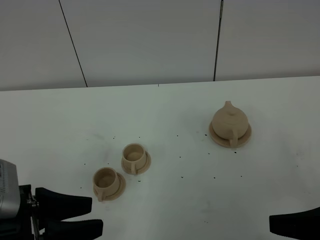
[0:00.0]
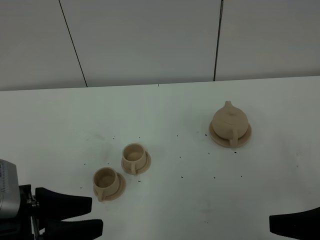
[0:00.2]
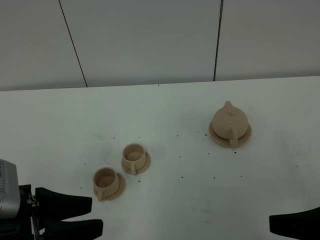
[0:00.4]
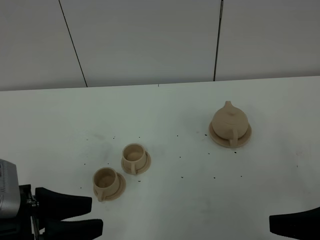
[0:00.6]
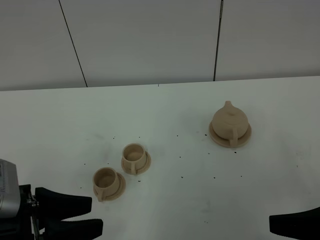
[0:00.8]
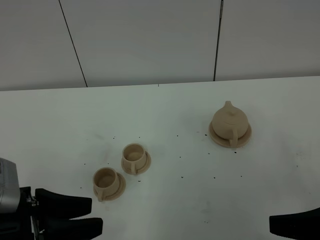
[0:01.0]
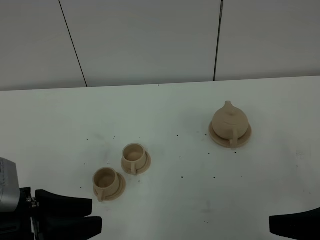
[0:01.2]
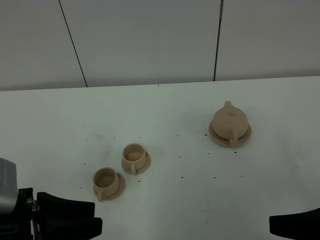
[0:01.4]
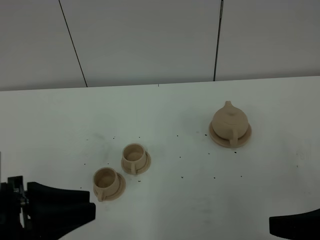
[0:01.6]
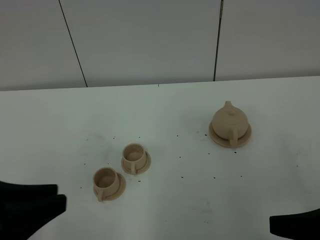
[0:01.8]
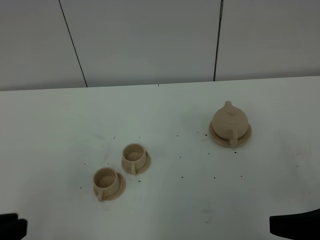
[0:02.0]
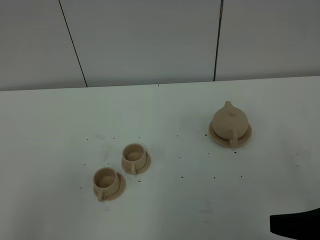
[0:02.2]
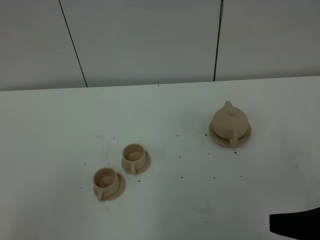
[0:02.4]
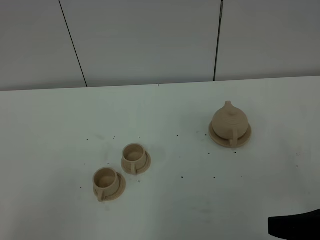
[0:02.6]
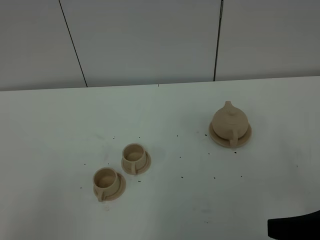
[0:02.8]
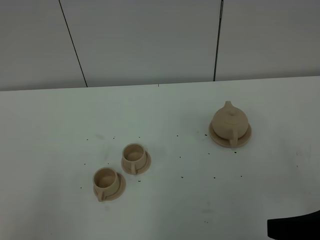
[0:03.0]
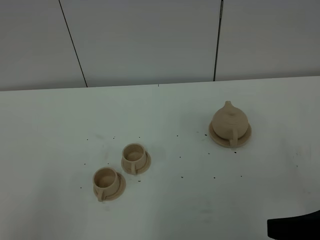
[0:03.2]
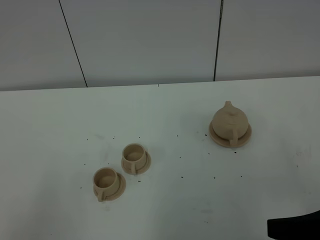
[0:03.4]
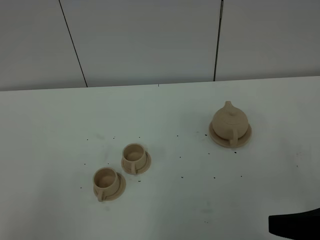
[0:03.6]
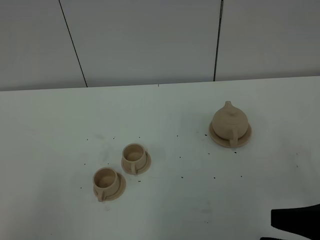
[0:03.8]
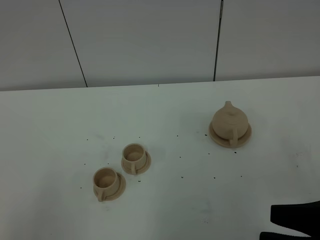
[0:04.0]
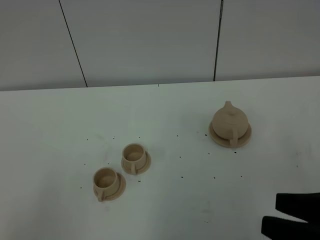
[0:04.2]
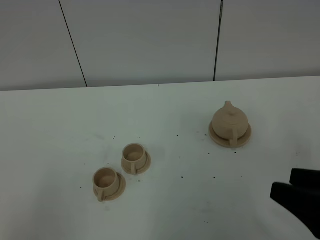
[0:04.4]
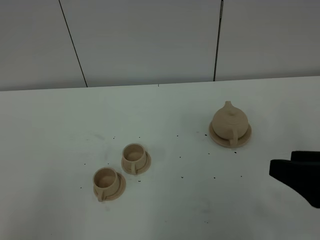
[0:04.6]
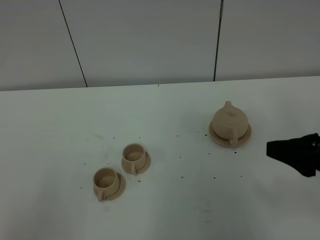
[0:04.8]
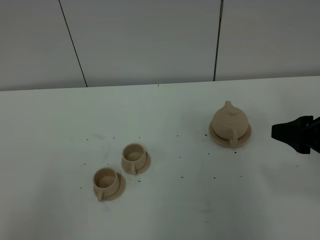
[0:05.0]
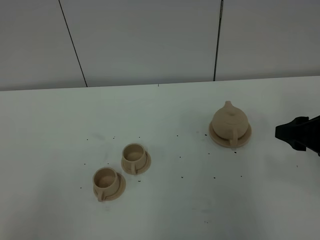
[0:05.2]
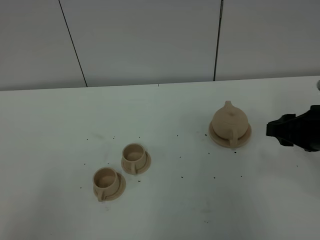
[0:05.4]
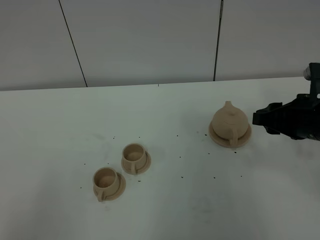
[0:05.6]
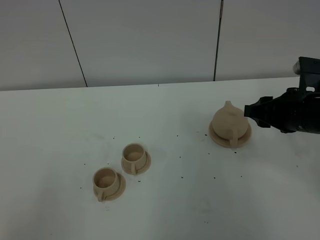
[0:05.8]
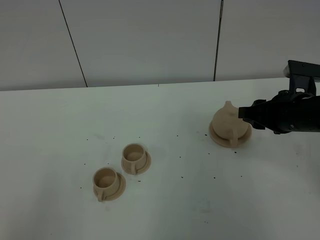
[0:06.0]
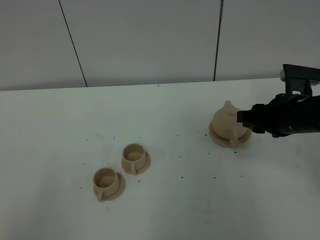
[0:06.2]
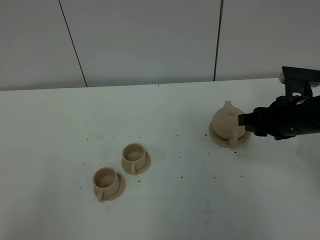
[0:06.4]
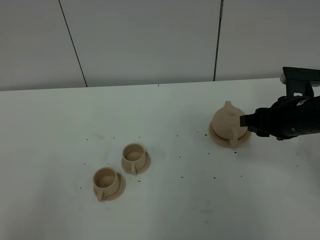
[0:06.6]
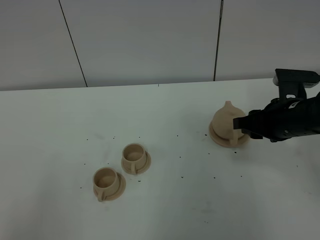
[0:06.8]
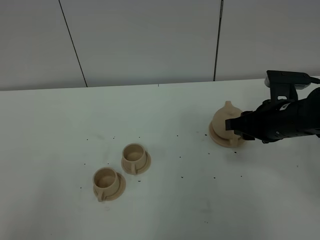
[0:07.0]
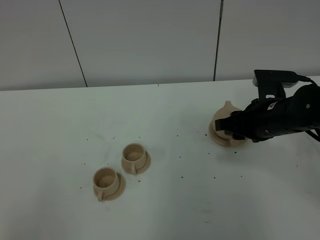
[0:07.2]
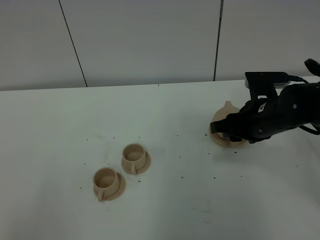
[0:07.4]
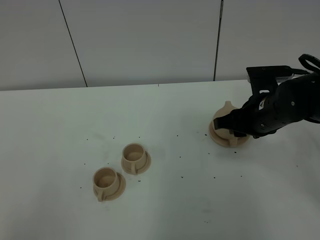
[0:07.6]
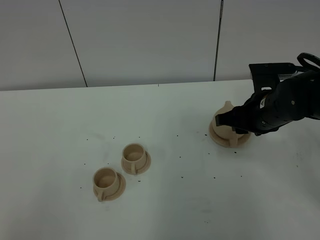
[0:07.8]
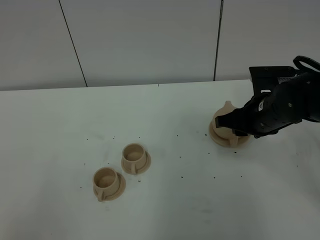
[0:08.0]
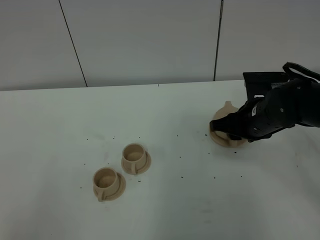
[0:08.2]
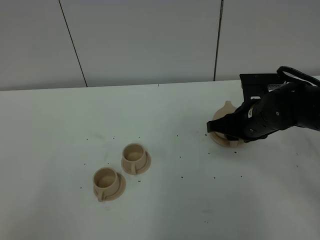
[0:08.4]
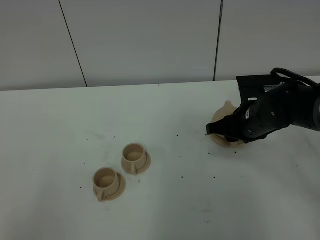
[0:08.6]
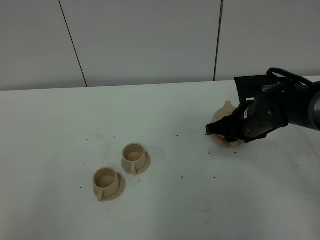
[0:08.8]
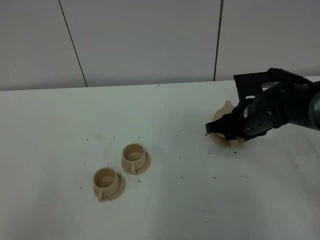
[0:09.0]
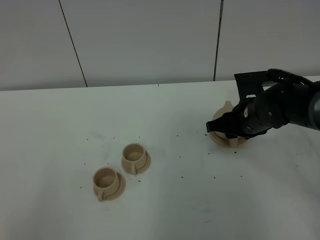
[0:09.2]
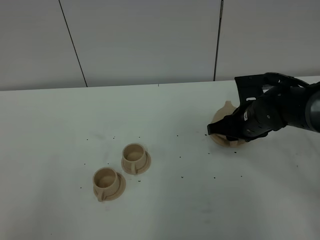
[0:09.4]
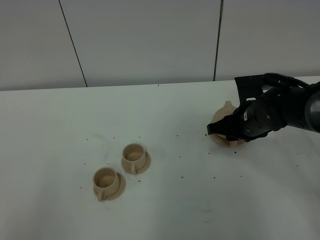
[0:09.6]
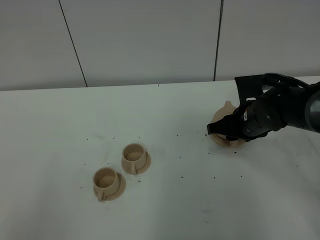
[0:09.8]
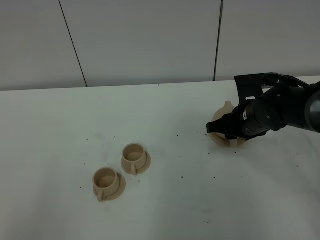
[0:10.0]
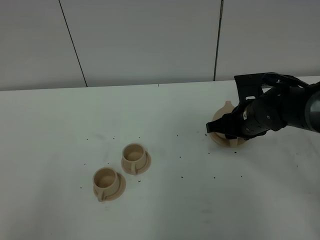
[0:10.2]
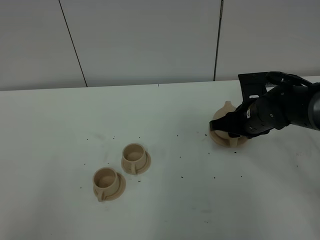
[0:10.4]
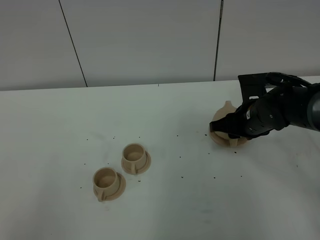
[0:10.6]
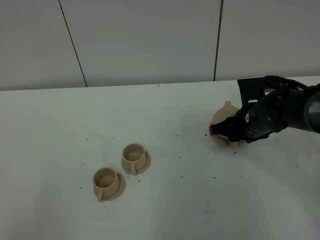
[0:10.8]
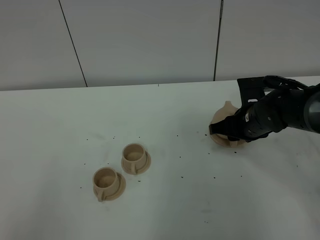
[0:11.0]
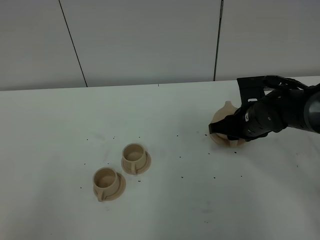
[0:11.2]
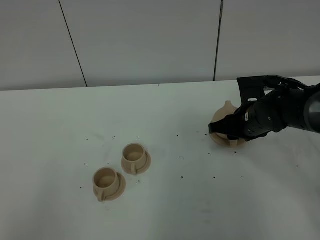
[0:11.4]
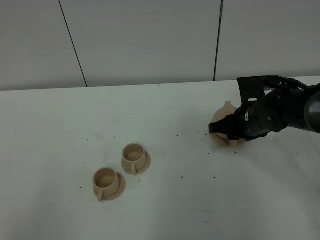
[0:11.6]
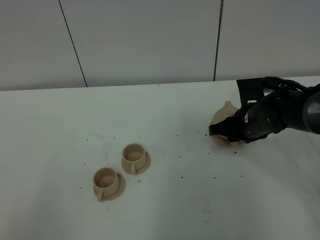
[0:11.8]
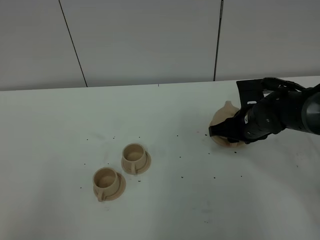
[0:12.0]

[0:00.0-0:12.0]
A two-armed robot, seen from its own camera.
Task of the whole recording: grasp the brown teapot and pour the tea into the two brown teacups one by one, put the brown teapot back in its original place.
0:00.0 to 0:01.6: There are only small adjustments of the grippers.
0:01.6 to 0:03.0: The left gripper heads backward and to the left, covering approximately 15 cm, and closes its fingers.
0:03.0 to 0:04.4: There are only small adjustments of the grippers.
0:04.4 to 0:06.0: The right gripper travels forward by roughly 20 cm.
0:06.0 to 0:07.6: The right gripper moves to the left, roughly 5 cm.
0:07.6 to 0:09.0: The grippers move only a little.
0:09.0 to 0:10.4: Neither gripper changes place.
0:10.4 to 0:12.0: The grippers make only small movements.

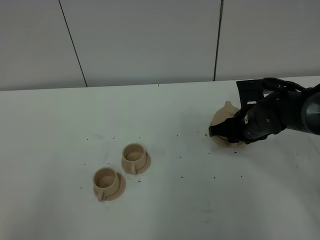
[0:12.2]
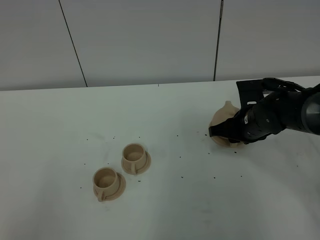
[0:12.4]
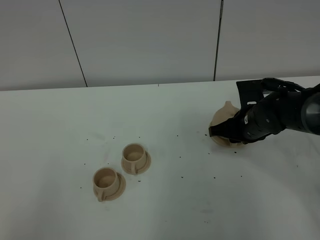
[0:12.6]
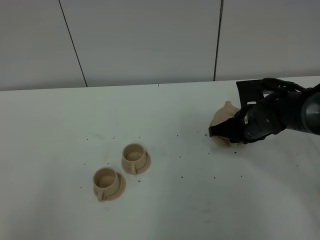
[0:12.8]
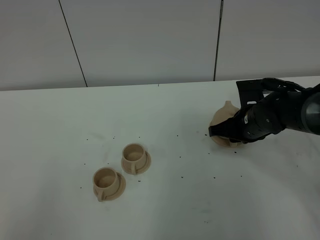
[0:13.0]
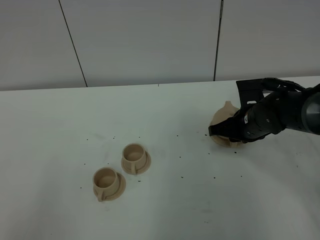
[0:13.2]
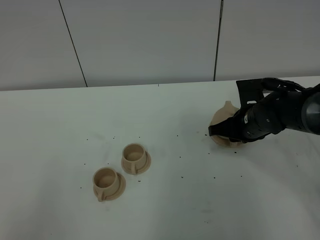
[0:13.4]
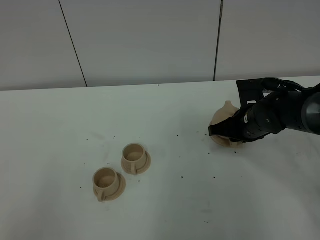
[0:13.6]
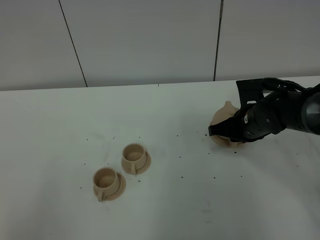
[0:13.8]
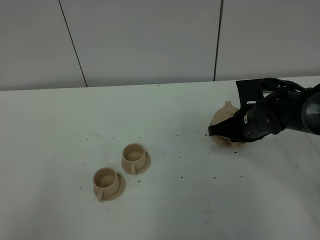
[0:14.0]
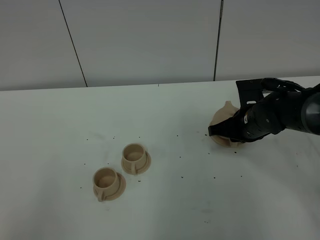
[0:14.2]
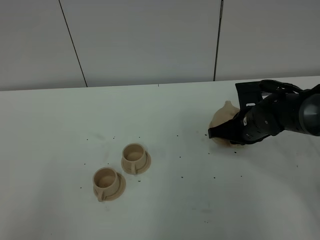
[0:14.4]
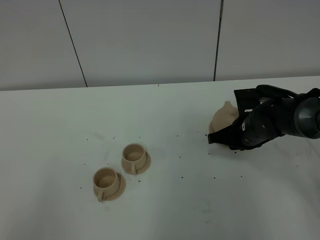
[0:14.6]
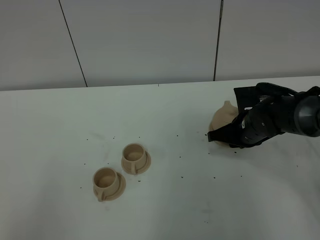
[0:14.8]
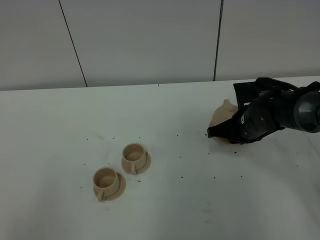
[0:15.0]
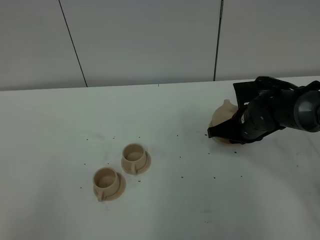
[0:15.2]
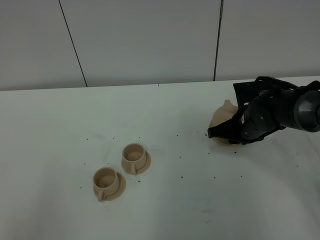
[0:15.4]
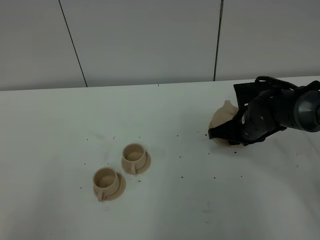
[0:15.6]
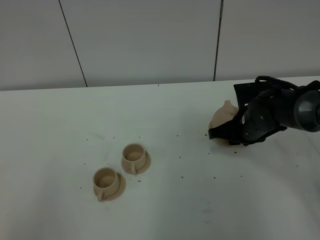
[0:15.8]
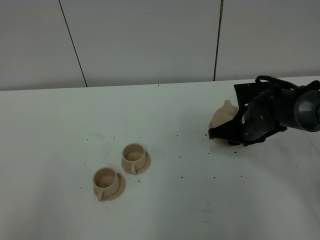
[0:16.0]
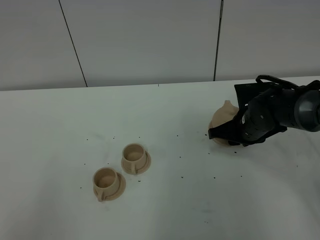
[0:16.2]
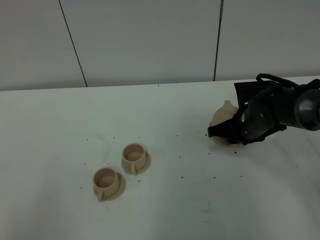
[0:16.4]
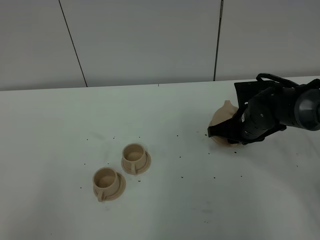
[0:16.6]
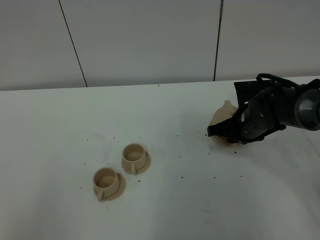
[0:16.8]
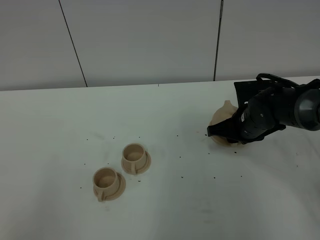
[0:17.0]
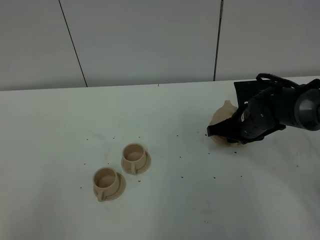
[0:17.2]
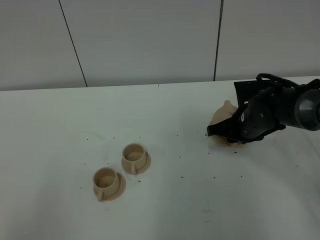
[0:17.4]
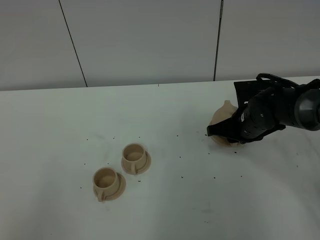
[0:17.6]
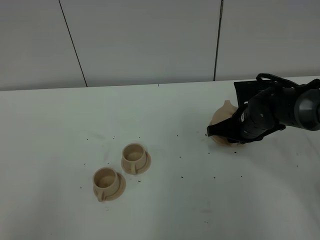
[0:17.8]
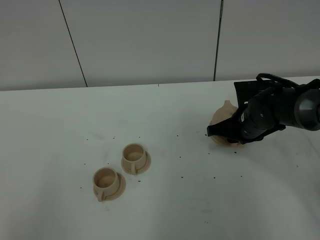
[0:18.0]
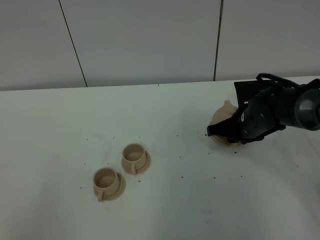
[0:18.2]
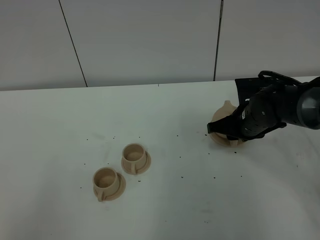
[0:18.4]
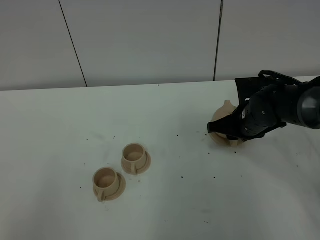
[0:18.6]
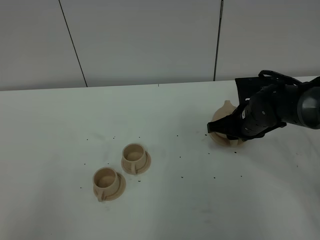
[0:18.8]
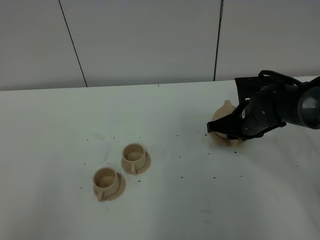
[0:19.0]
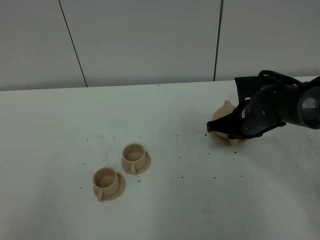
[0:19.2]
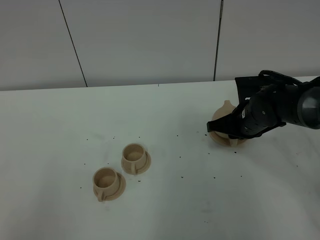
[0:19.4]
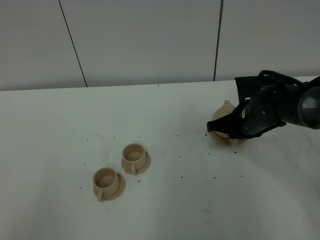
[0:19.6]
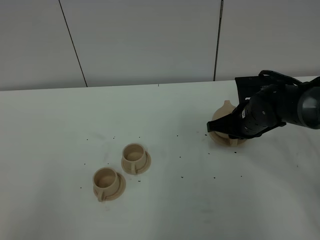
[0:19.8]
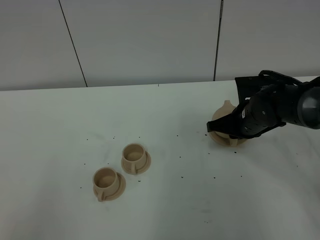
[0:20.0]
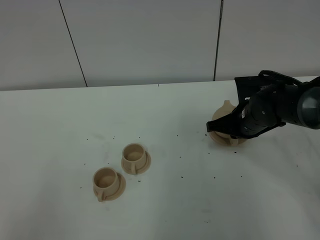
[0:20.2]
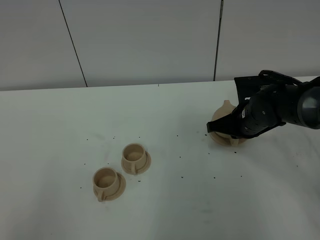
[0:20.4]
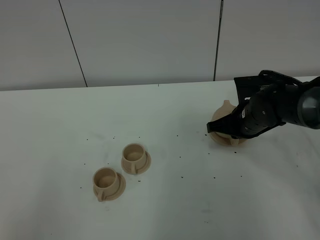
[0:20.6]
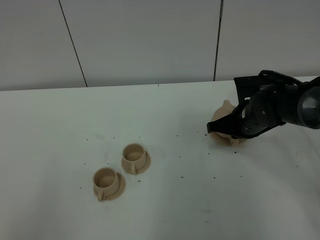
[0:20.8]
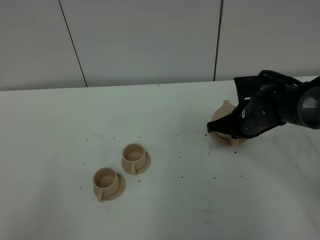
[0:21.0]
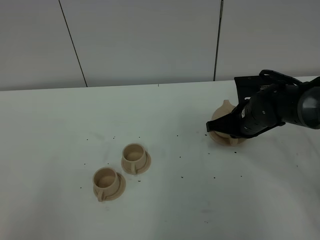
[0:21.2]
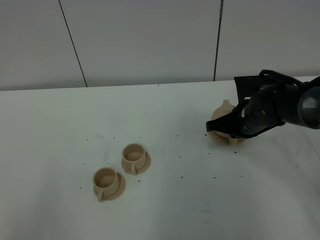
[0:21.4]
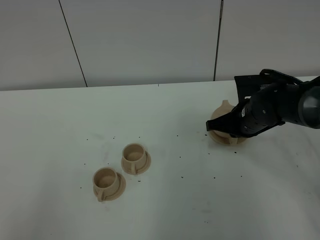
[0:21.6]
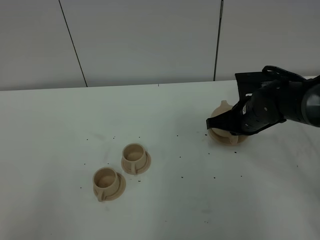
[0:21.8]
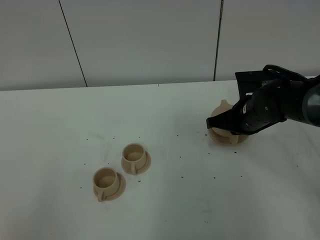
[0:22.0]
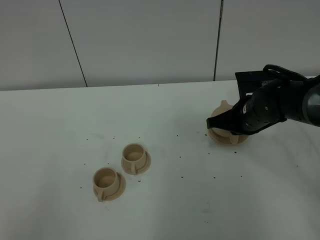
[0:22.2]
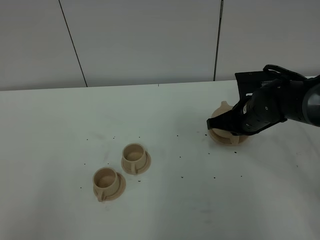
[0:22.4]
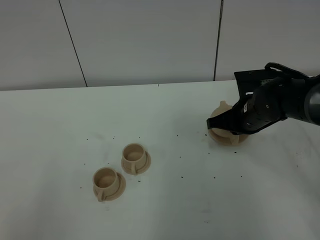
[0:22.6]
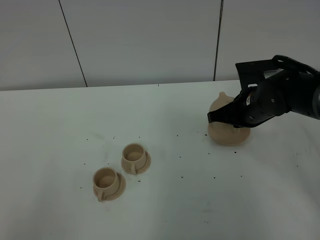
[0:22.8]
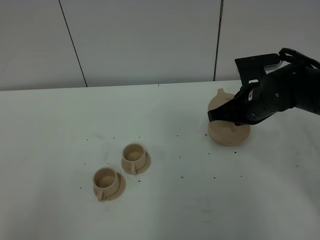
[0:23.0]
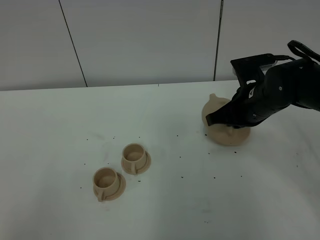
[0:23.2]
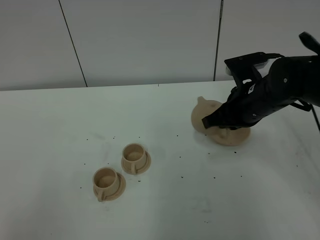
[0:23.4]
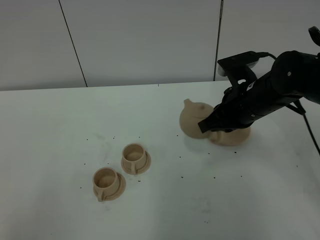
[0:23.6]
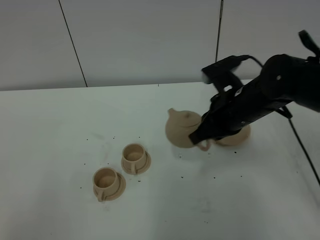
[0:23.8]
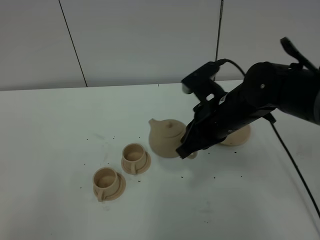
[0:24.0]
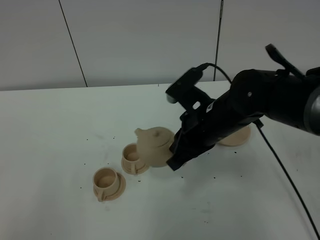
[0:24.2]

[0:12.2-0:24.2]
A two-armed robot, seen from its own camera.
Task of the whole recording: grasp the brown teapot and pour the tea into the two brown teacups one by one, put the brown teapot back in its original place.
Step, 0:12.2 to 0:22.6: Pick up the teapot with the right gripper.
0:12.2 to 0:13.8: The two grippers keep their place.
0:13.8 to 0:15.2: The grippers stay close to where they were, moving slightly.
0:15.2 to 0:21.2: Both grippers stay put.
0:21.2 to 0:22.6: The grippers make only small movements.
0:22.6 to 0:24.2: The right gripper moves to the left, backward and upward, roughly 15 cm.
